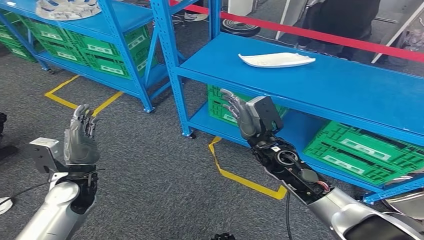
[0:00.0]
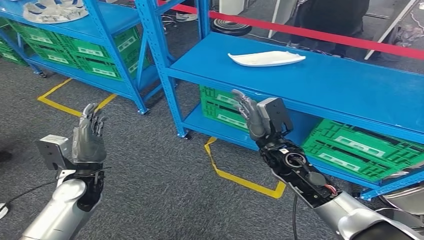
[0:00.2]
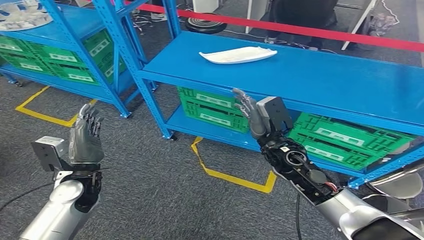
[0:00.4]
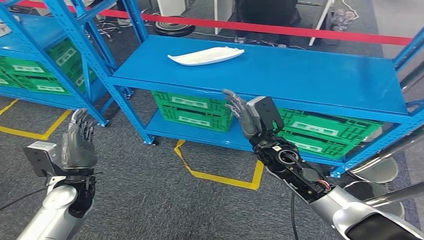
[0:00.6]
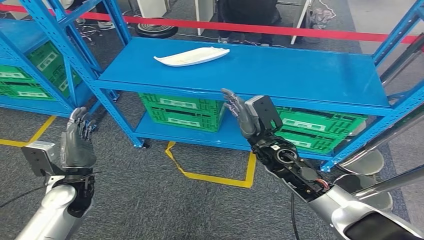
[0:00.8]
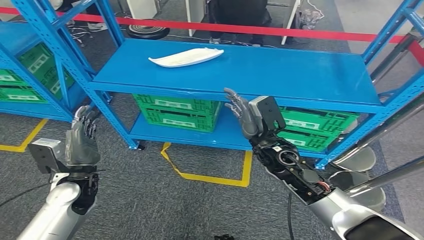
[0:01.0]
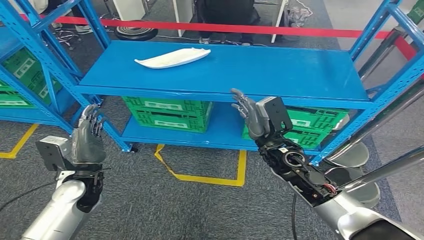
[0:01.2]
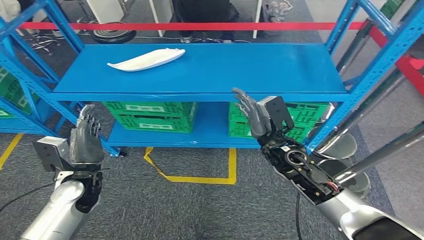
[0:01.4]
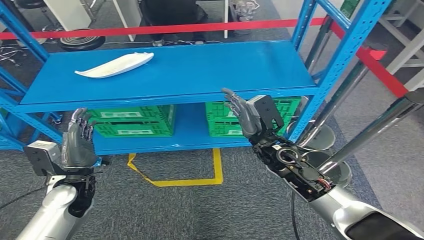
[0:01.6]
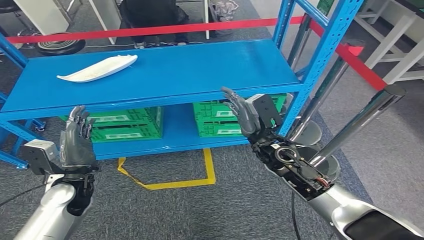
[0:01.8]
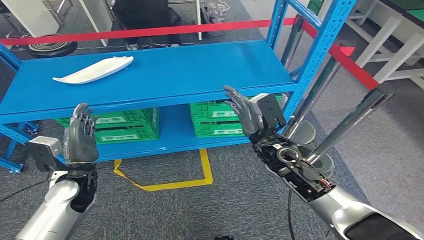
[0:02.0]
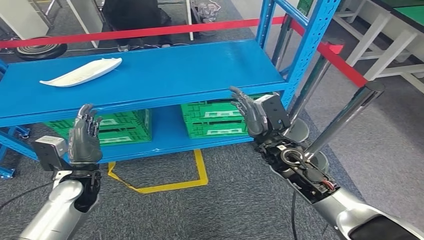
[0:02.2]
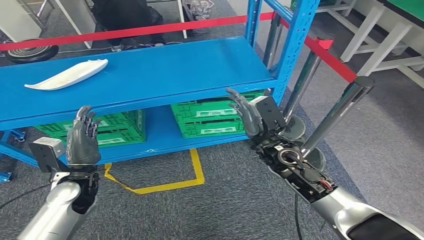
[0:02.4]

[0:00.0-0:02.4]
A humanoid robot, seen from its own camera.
Step, 0:00.0 to 0:02.4: Move to the initial position at the workbench.
